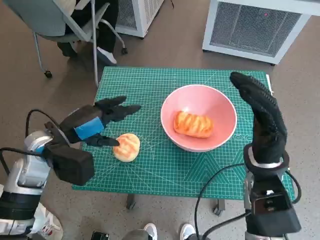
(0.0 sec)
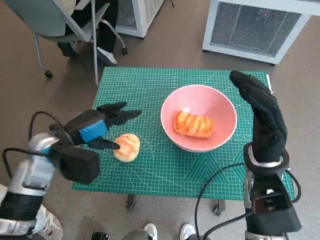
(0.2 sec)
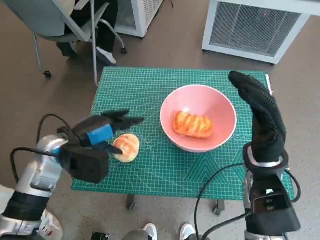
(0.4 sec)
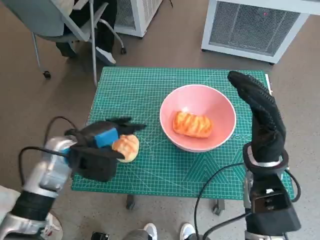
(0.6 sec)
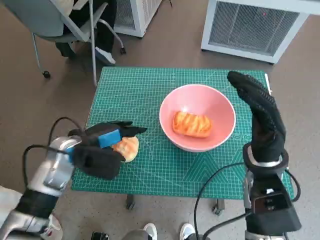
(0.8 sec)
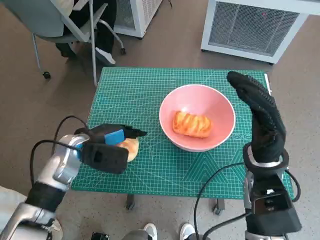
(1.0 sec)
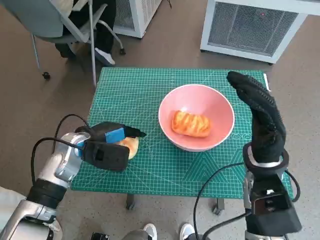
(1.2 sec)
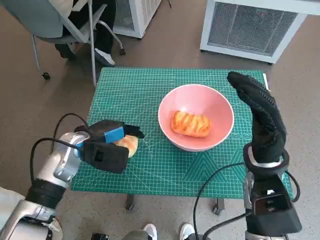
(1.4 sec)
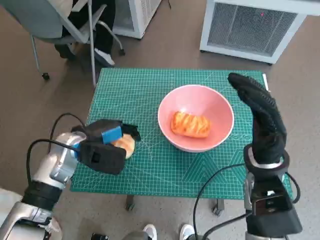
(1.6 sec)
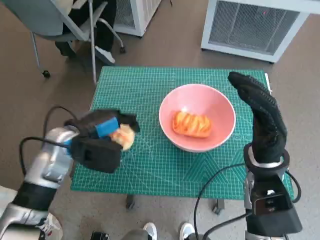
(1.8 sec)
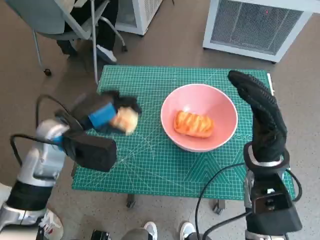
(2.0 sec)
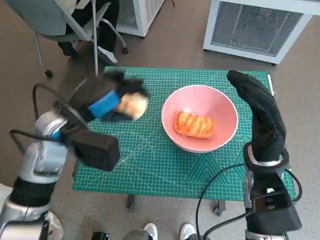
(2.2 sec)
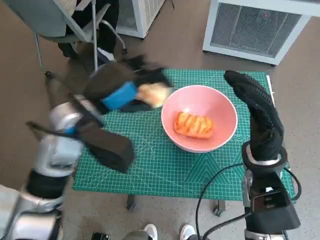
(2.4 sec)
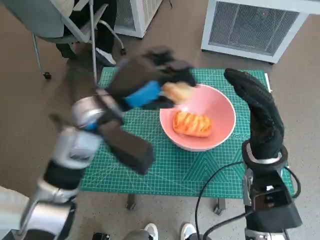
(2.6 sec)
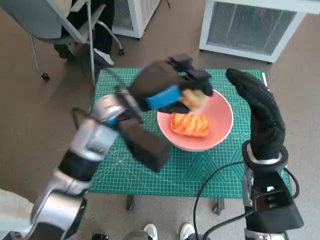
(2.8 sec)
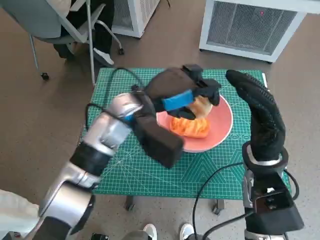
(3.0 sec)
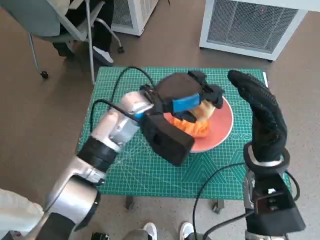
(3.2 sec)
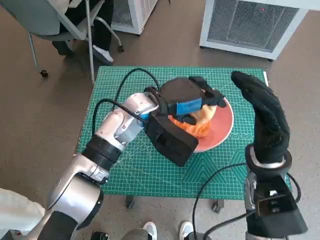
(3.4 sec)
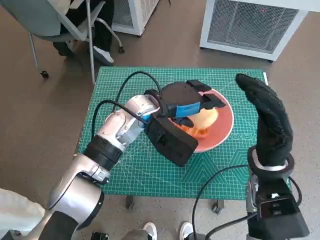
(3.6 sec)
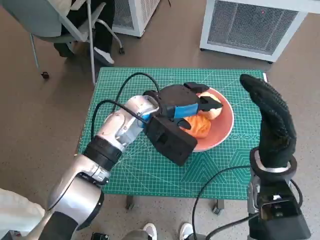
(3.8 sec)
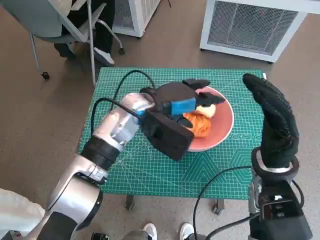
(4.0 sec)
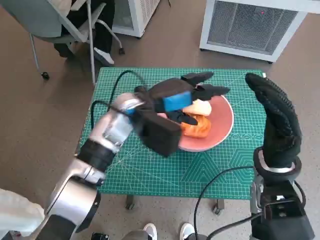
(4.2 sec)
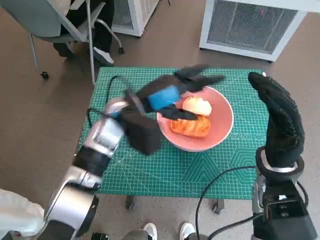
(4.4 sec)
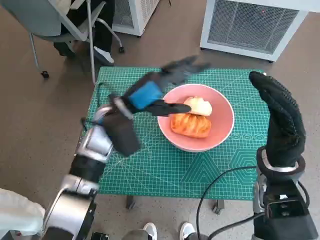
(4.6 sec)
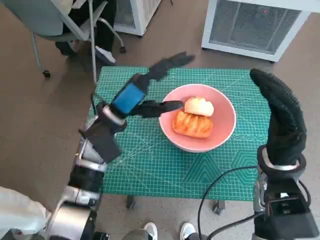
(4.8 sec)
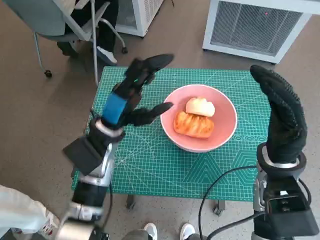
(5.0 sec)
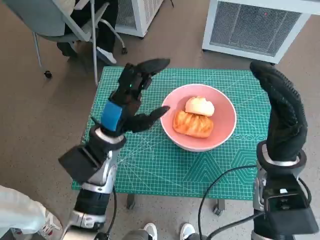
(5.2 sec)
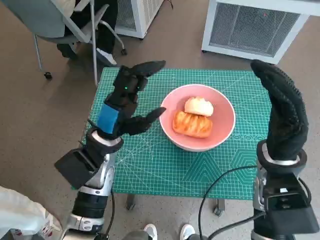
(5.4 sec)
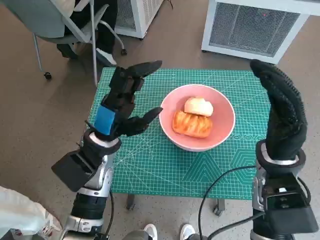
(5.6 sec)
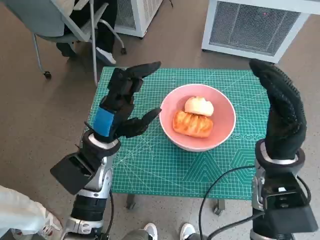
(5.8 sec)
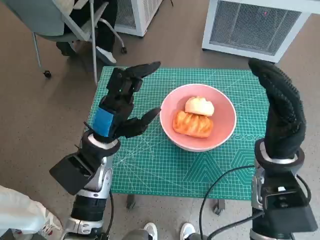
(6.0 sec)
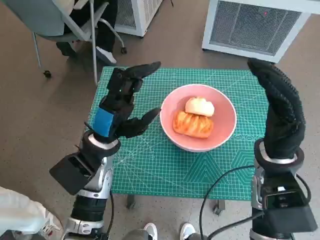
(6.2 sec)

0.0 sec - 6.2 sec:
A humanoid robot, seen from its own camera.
Task of the whole recording: Push the bowl to the center of the table and put the bread into the bowl.
Step, 0.0 sec - 1.2 sec: Grasp the round bread with left hand.
Step, 1.4 sec - 4.8 sec: Place the round bread in pink bowl with left hand.
0.0 sec - 1.6 sec: The left hand moves approximately 5 cm.
1.6 sec - 3.2 sec: The left hand travels to the right and upward by about 15 cm.
3.2 sec - 4.6 sec: The left hand moves to the left, approximately 5 cm.
4.6 sec - 6.2 sec: The left hand goes some 5 cm backward.
